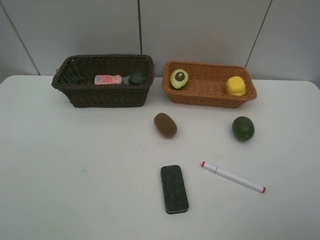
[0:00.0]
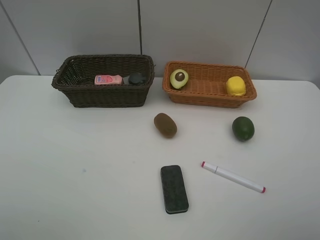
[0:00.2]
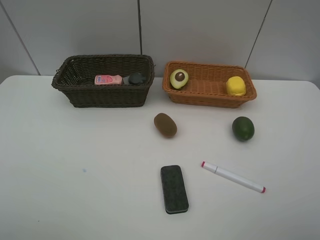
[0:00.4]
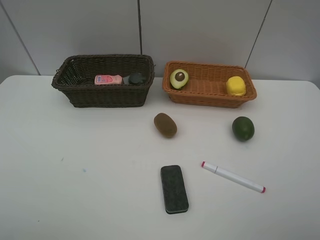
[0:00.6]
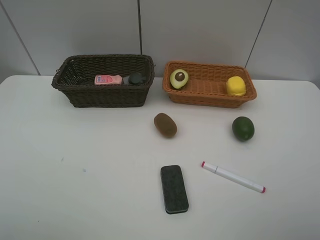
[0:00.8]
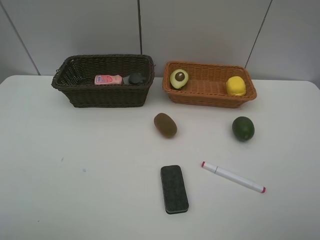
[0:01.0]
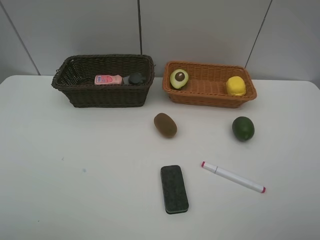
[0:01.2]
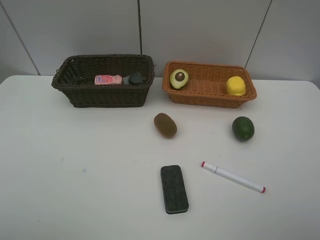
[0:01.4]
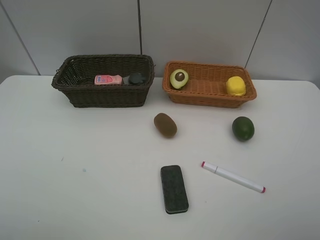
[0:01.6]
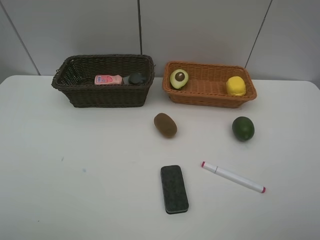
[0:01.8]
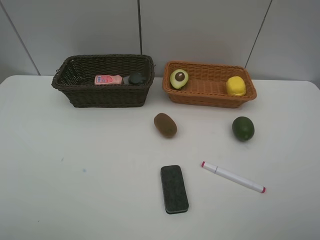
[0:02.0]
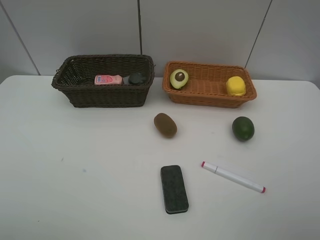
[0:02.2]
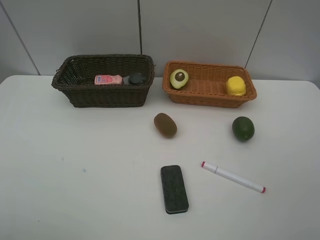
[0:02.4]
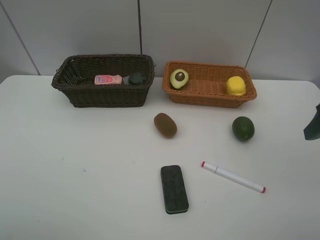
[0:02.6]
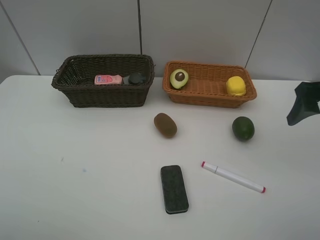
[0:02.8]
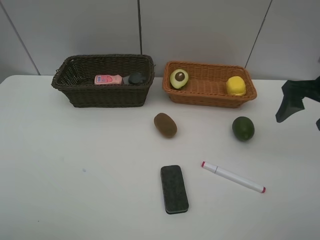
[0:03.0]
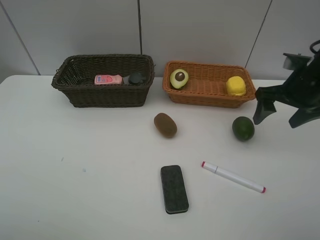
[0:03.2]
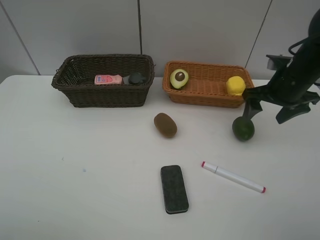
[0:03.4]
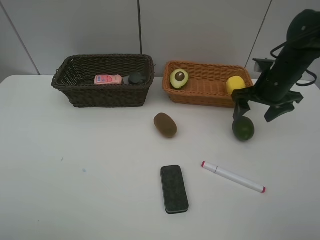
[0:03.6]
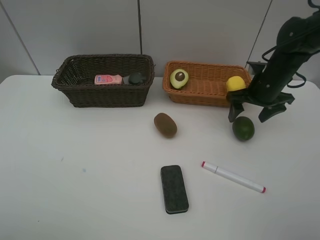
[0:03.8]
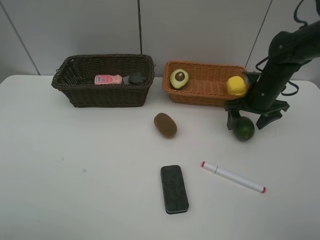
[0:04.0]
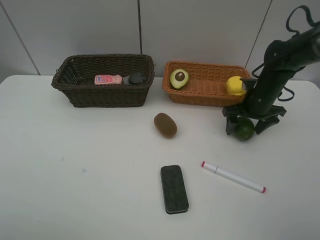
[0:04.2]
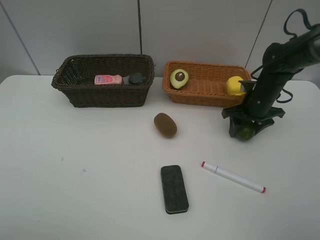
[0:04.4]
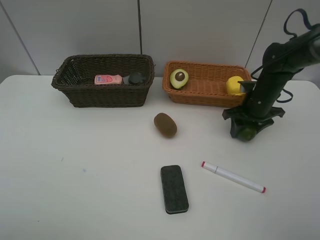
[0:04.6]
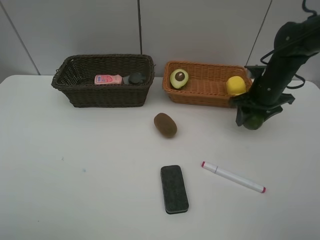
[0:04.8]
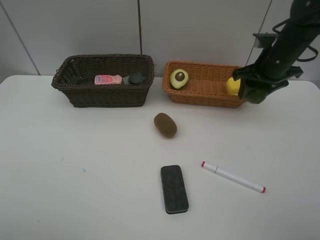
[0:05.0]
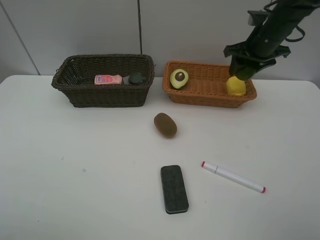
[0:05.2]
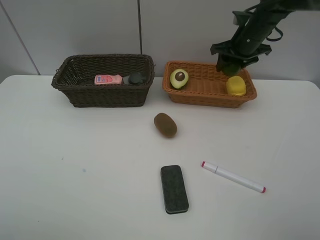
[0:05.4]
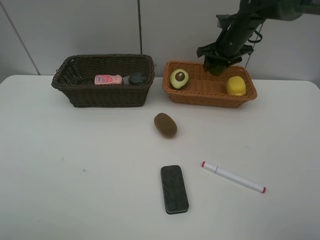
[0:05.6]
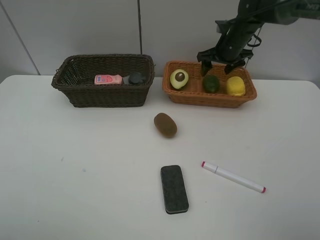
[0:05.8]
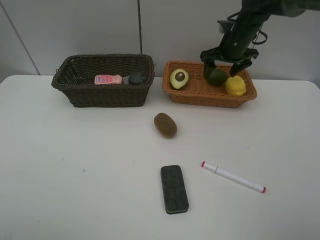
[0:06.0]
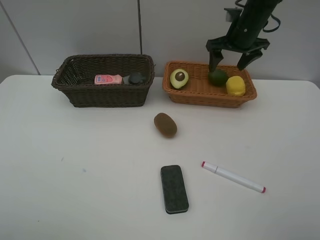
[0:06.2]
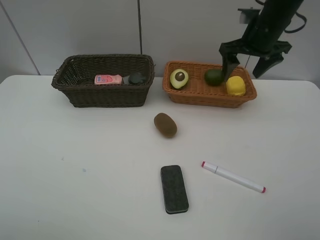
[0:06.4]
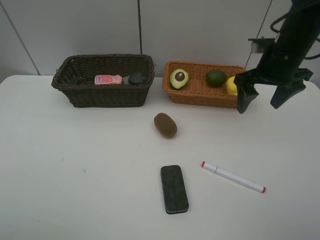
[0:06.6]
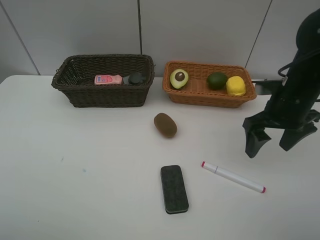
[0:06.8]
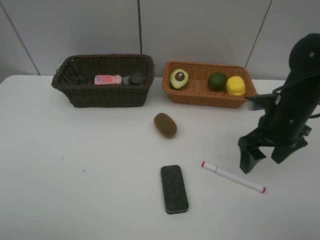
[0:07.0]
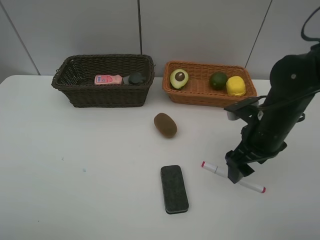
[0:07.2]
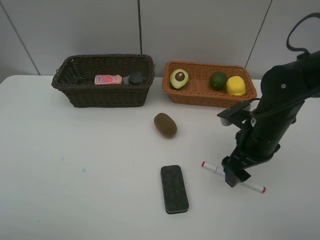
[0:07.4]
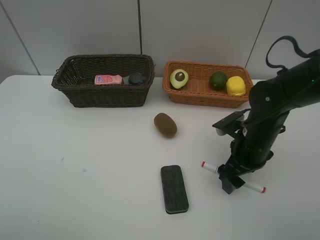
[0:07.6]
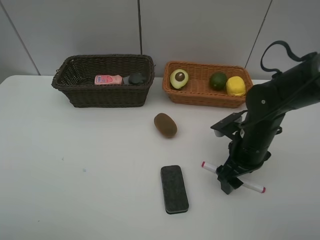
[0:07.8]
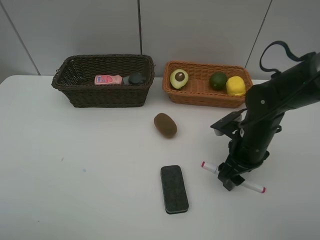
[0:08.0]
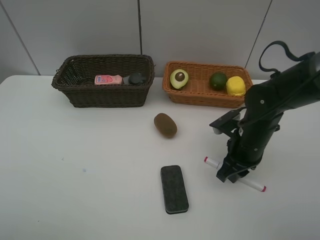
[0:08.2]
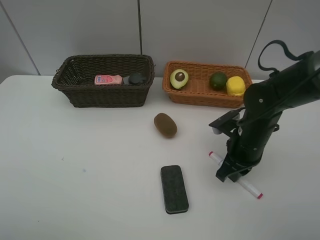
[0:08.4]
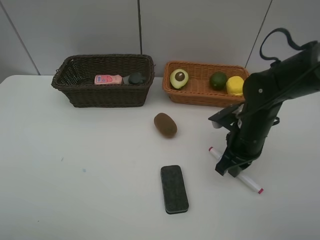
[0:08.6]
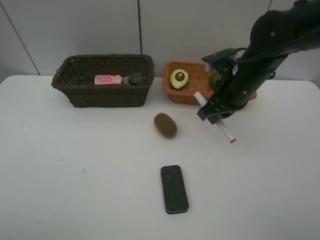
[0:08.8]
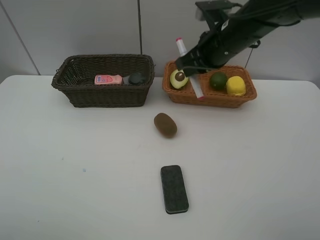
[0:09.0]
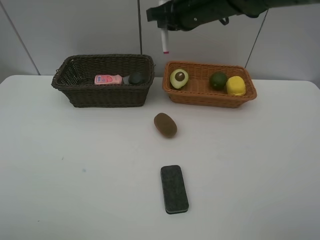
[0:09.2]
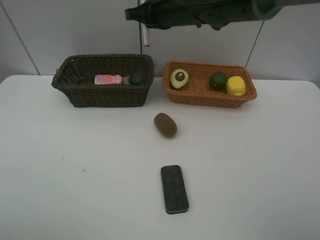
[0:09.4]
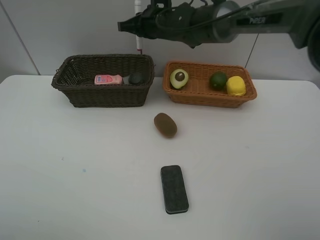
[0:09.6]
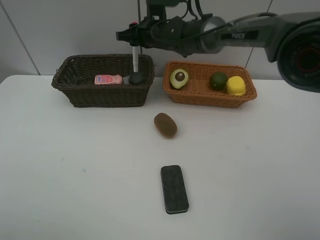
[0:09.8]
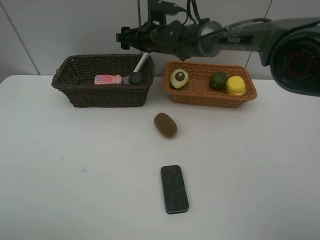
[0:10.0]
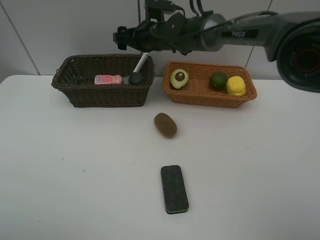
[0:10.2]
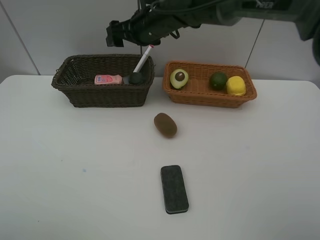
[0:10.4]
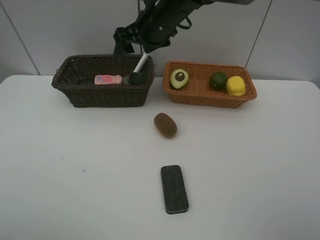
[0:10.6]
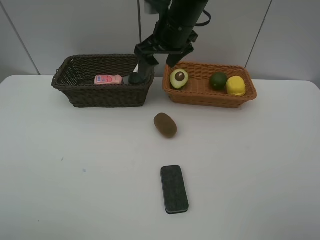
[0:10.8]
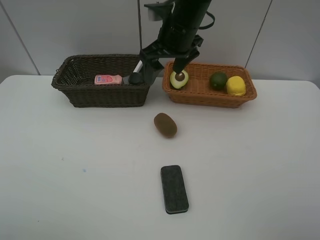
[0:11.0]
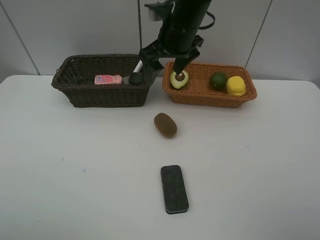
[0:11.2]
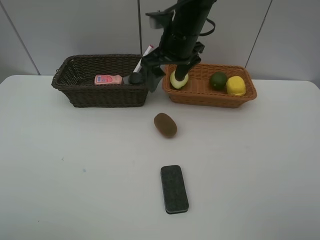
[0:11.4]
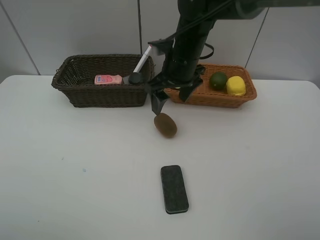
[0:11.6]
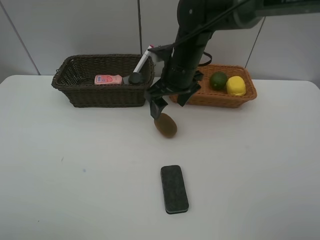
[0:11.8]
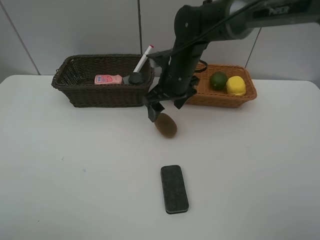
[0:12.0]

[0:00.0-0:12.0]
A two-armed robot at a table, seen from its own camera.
Task of the whole recording: Place multiple objects separately in different baskets.
Step, 0:00.0 to 0:04.6: Pick up the lime with right gripper.
Step, 0:04.8 to 0:05.8: Place the lime in the light basket with right gripper.
Step, 0:06.0 to 0:08.6: Pick up the red marker with right gripper.
Step, 0:08.8 to 0:10.0: Place the red marker in the dark basket with right gripper.
0:01.6 to 0:03.0: The right gripper travels forward by about 25 cm.
0:03.0 to 0:04.4: The right gripper heads downward, forward and to the left, covering roughly 20 cm, and closes up.
0:04.4 to 0:06.0: The right gripper travels forward, upward and to the left by some 15 cm, and opens.
0:06.0 to 0:07.6: The right gripper shifts about 25 cm backward and downward.
0:07.6 to 0:09.0: The right gripper moves upward, forward and to the left, roughly 20 cm, and closes up.
0:09.0 to 0:10.4: The right gripper moves to the left and forward, about 15 cm, and opens its fingers.
0:10.4 to 0:12.0: The right gripper moves downward, backward and to the right, about 10 cm.

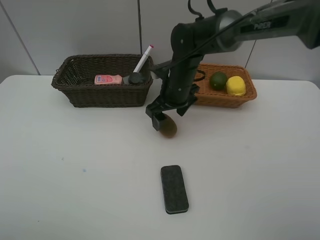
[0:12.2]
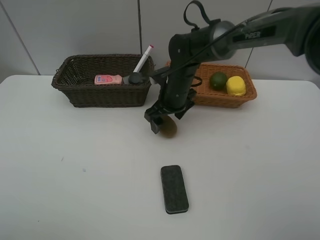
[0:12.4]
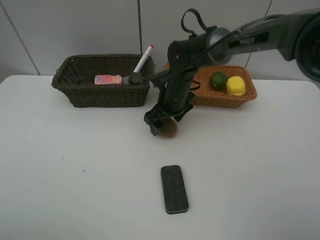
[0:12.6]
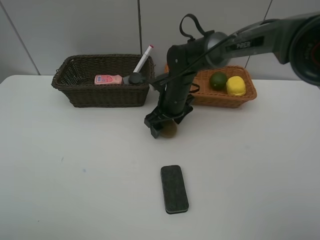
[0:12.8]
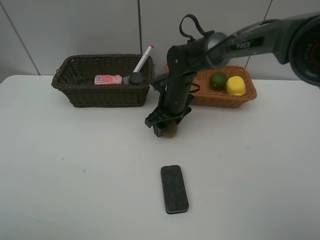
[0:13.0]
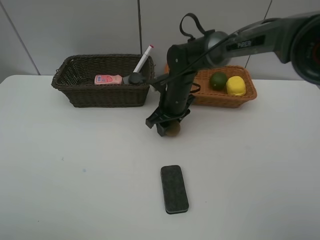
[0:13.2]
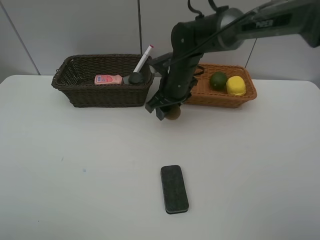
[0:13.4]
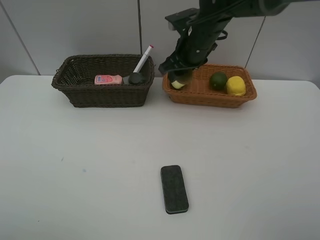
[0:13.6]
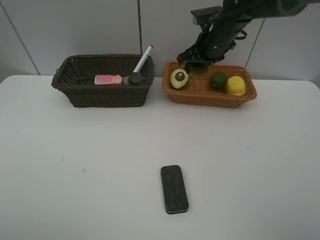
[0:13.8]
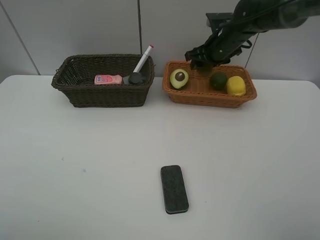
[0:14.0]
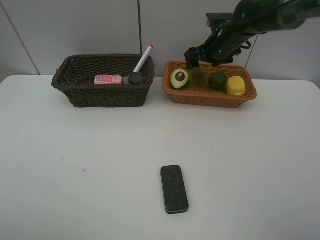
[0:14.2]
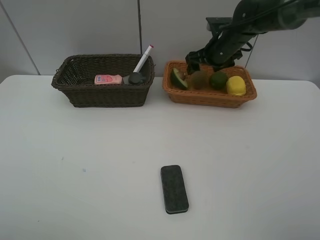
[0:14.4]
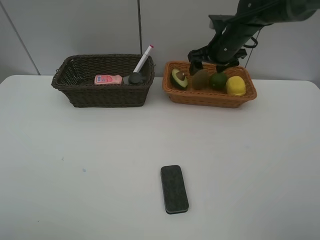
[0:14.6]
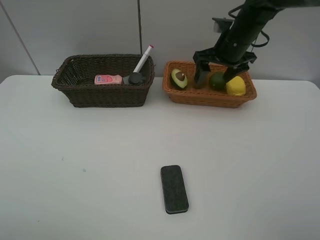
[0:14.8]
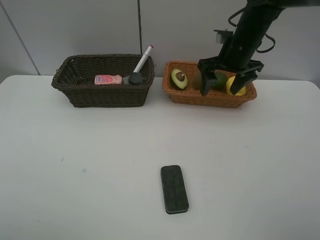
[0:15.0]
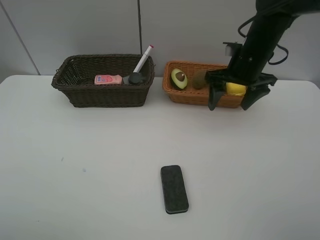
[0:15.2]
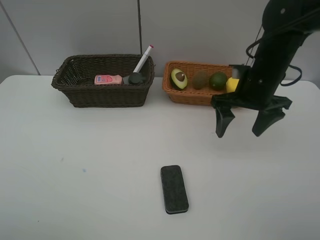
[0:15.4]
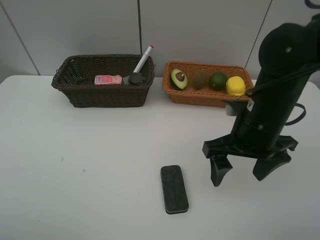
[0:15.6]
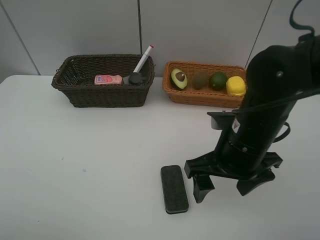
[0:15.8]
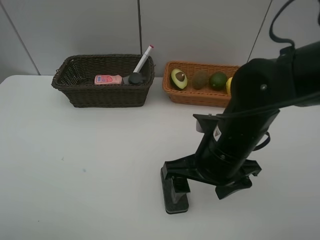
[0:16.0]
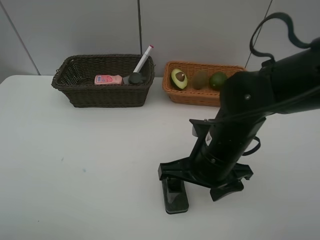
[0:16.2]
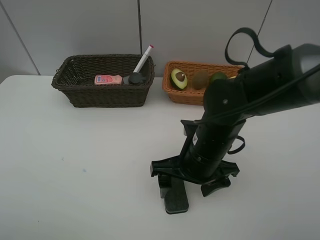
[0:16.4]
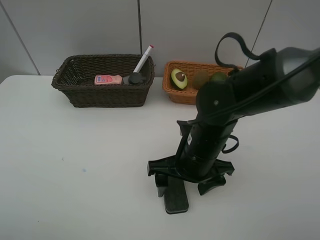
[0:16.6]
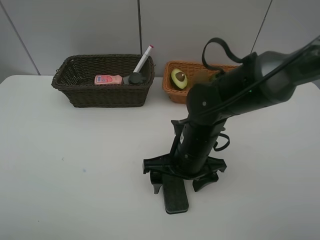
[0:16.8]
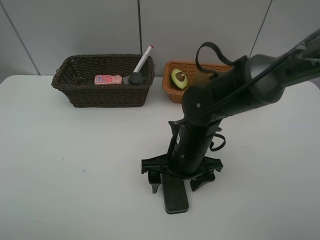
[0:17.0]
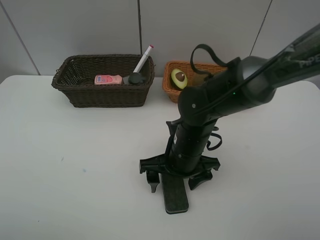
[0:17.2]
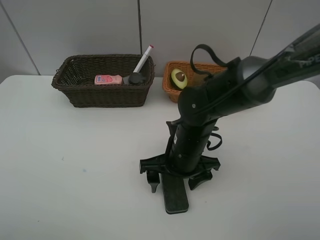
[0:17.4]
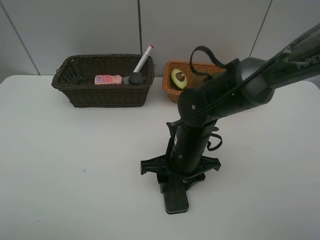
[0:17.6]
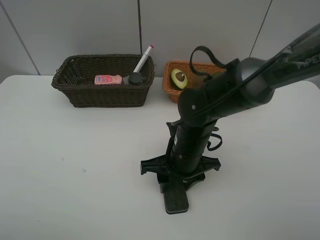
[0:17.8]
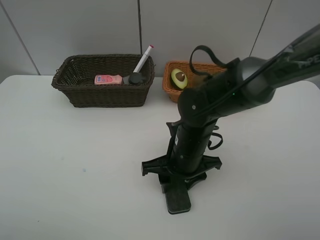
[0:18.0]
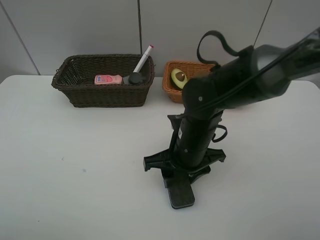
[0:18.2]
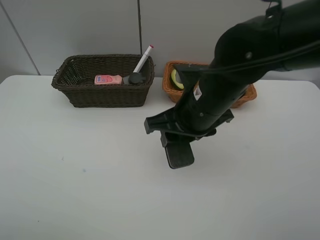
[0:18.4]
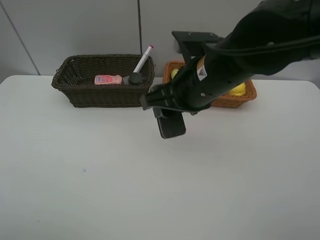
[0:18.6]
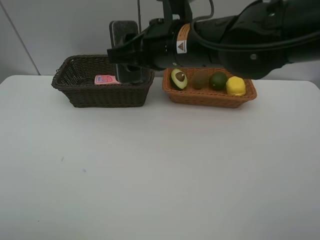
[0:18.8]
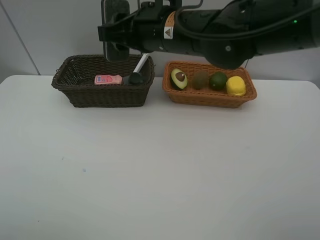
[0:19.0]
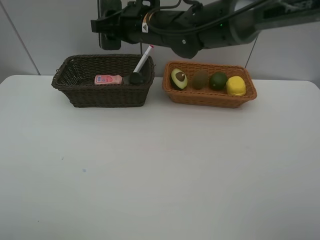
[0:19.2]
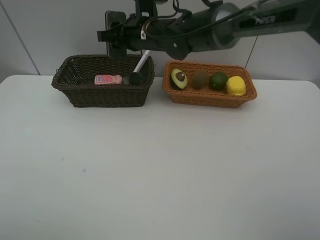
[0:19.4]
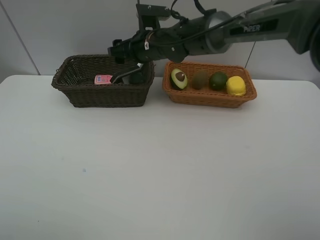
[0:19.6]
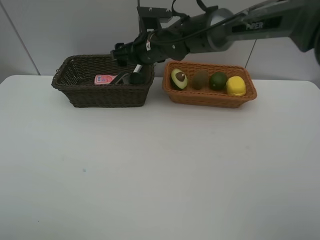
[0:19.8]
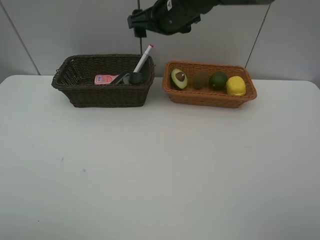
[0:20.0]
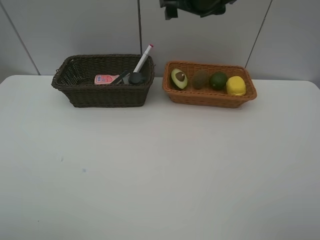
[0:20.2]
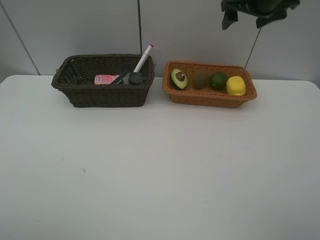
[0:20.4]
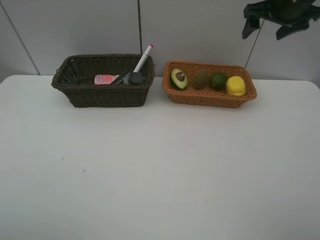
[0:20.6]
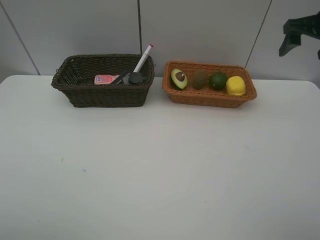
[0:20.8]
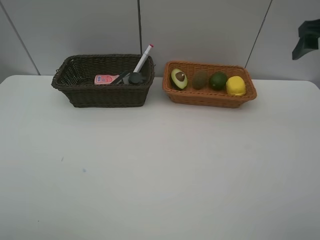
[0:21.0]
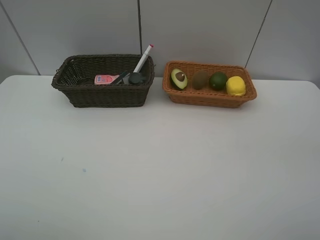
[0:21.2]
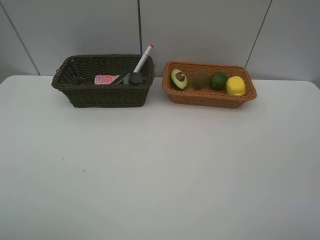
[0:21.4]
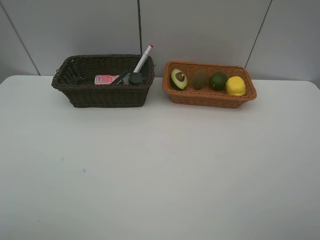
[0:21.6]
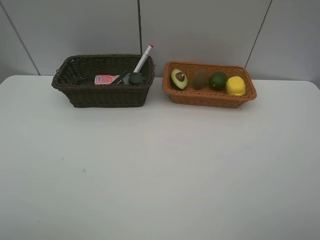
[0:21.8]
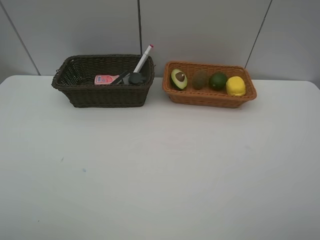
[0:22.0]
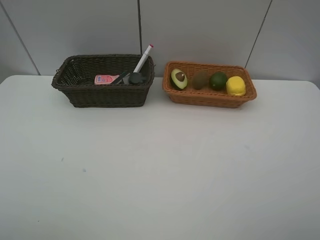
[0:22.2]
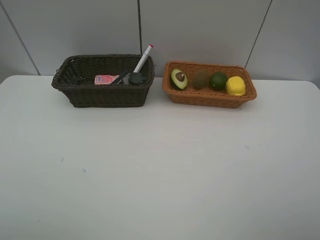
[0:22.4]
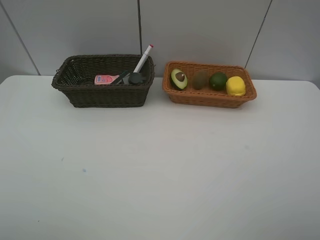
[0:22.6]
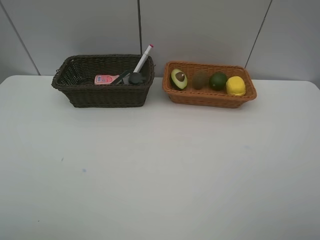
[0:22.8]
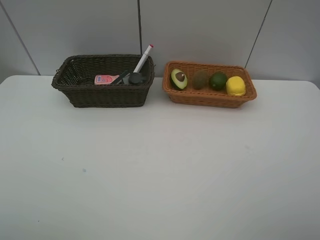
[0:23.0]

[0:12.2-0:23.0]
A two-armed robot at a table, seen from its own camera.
Task of the whole recording: Place multiple objects separately in different baskets.
Step, 0:13.4 to 0:14.2: Place the kiwi in the light basket with right gripper.
Step, 0:14.4 to 0:18.2: Pick up blackboard eraser with right gripper.
Step, 0:18.4 to 0:19.8: Place the blackboard eraser in the dark basket with right gripper.
0:12.2 to 0:13.8: The right gripper travels to the right, upward and forward by some 15 cm, and closes up.
0:13.8 to 0:15.2: The right gripper is displaced backward and to the right by approximately 10 cm, and opens up.
0:15.2 to 0:16.8: The right gripper is displaced backward, to the left and downward by some 20 cm.
0:16.8 to 0:18.4: The right gripper shifts about 10 cm upward, and closes up.
0:18.4 to 0:20.0: The right gripper goes some 20 cm forward and upward, and opens.
0:20.0 to 0:21.4: The right gripper goes about 40 cm backward and to the right.
